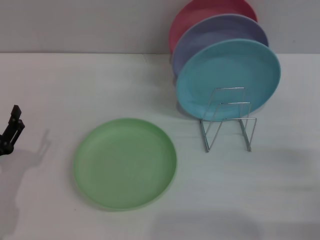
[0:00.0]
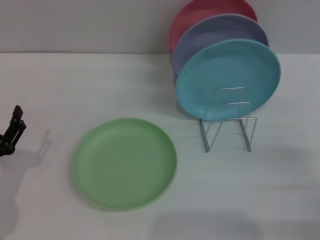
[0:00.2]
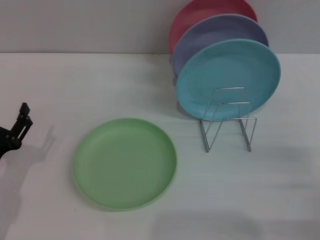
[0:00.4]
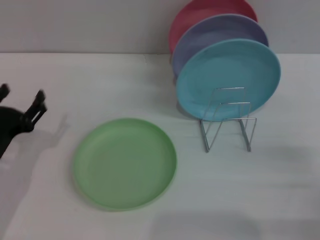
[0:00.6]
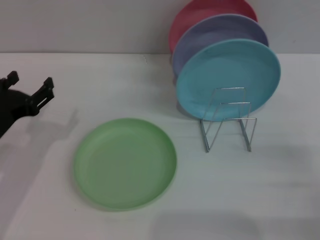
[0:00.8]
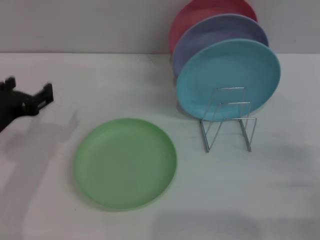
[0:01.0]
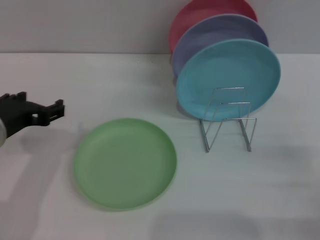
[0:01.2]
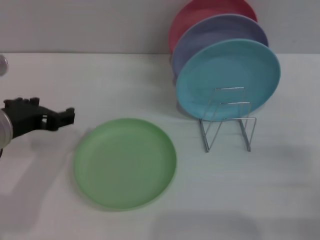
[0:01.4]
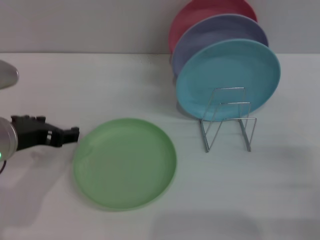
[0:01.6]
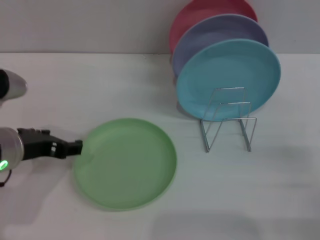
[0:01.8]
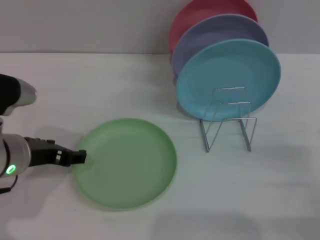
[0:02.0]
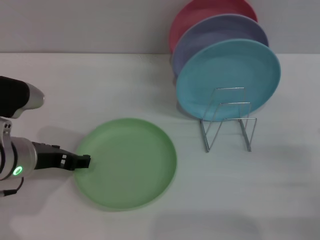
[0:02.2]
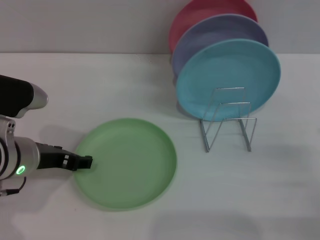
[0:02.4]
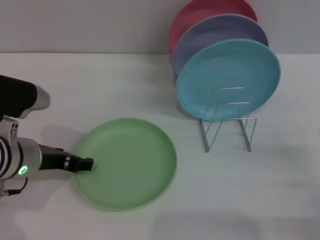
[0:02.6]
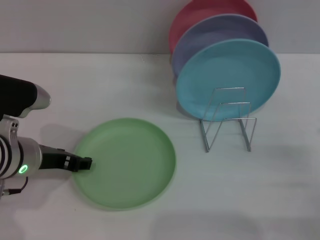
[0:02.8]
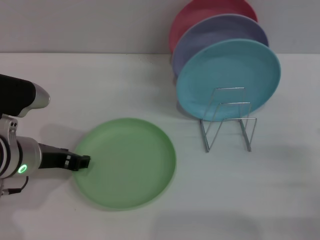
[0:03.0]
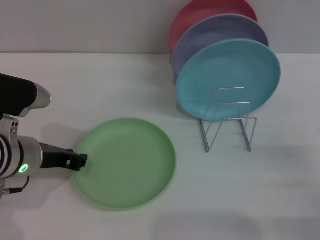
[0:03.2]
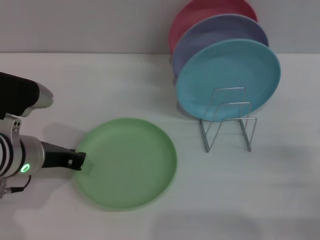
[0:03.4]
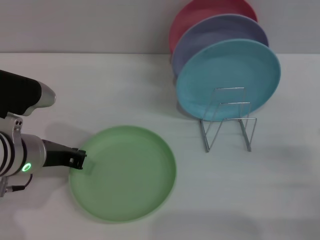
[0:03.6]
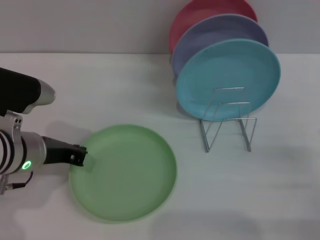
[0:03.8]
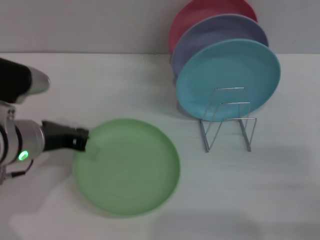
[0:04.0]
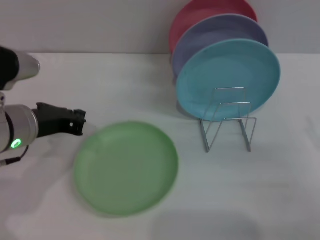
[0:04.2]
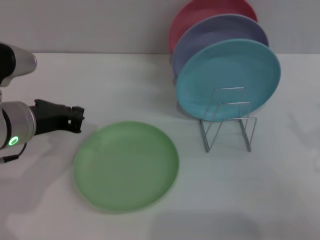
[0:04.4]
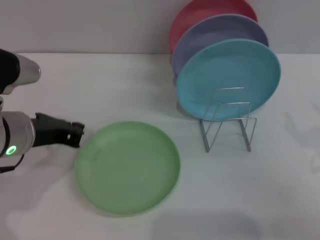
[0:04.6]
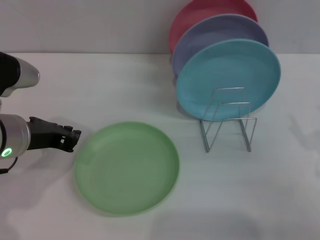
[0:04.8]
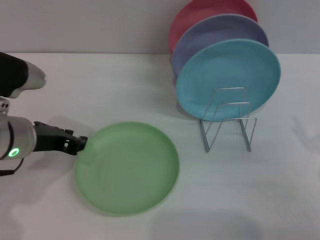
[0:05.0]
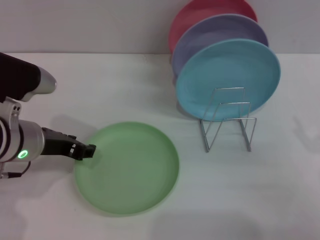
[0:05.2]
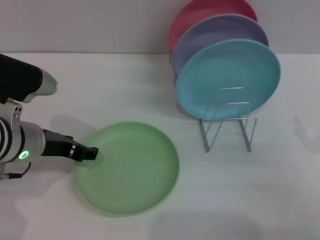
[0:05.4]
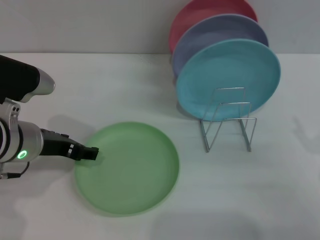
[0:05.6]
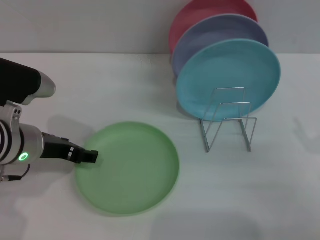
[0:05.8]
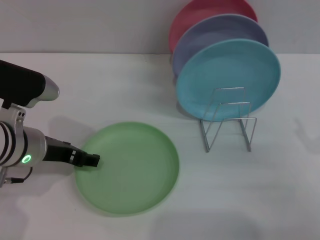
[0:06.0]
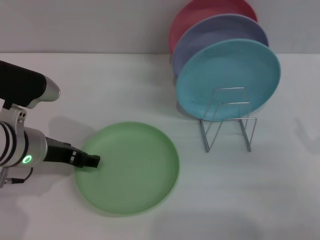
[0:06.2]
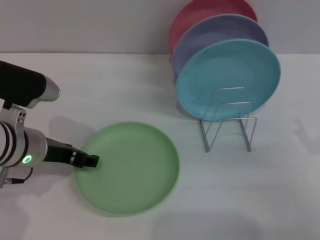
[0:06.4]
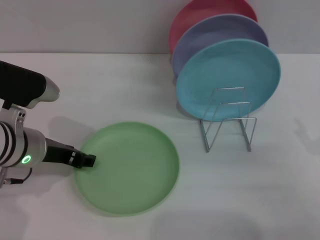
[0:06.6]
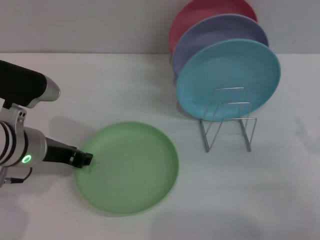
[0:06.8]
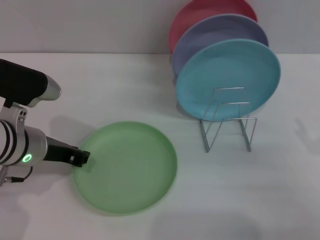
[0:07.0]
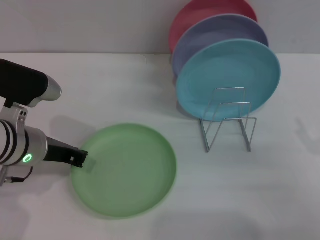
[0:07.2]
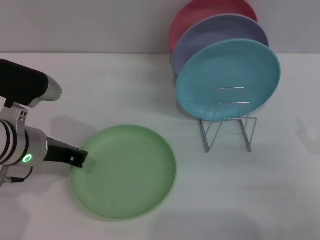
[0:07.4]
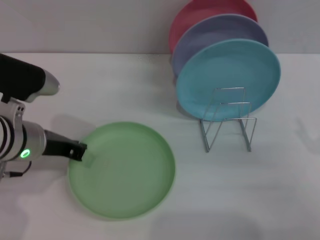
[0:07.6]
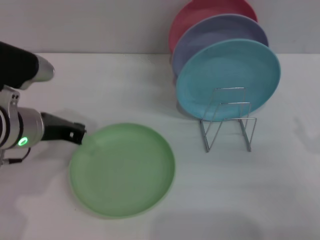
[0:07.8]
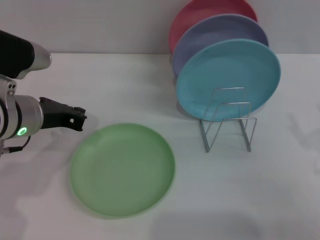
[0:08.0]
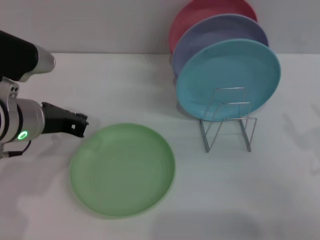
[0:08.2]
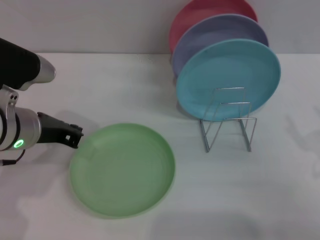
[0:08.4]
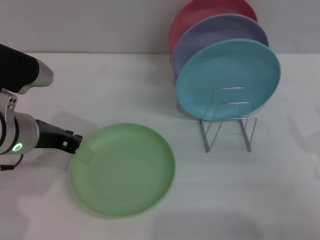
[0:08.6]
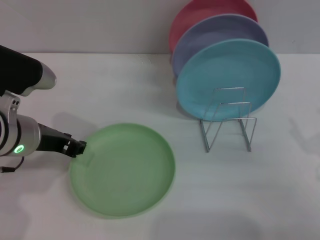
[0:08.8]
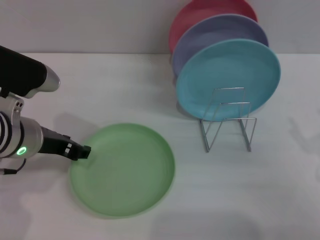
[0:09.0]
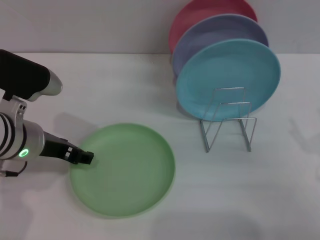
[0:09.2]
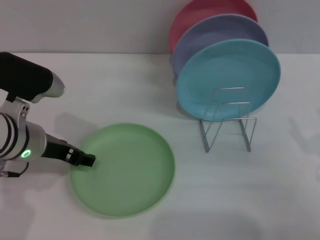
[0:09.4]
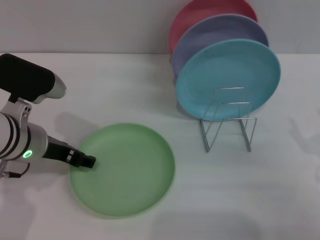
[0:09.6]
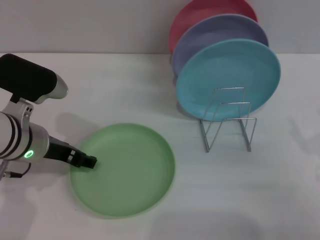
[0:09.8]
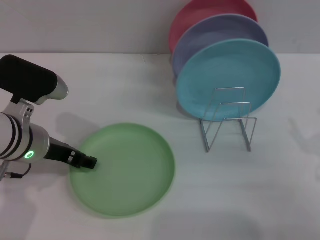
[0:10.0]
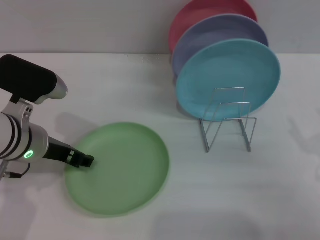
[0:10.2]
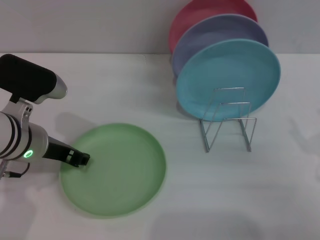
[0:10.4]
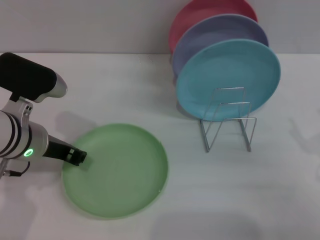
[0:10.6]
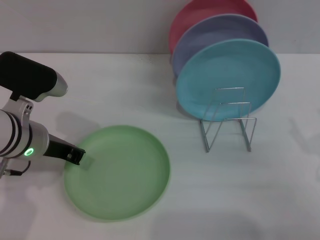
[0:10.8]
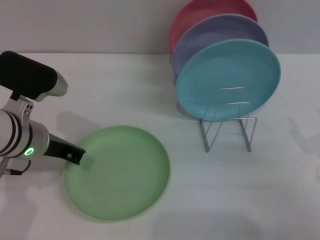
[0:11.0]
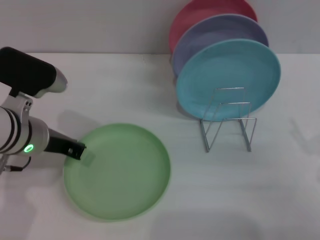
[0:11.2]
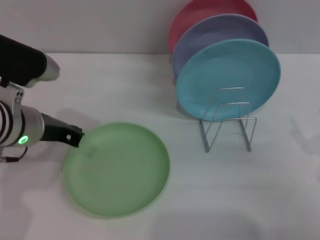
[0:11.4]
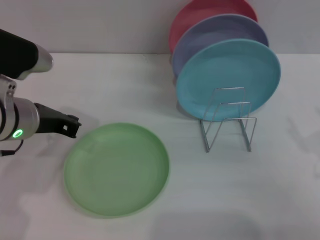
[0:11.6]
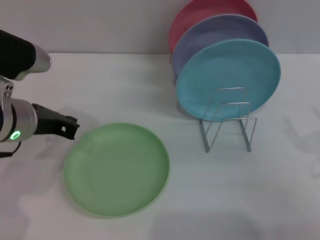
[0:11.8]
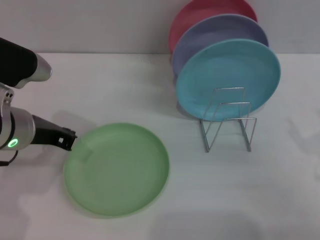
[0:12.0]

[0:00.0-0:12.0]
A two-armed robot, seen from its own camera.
Task of the whole recording: Grip the plate with one hand, pass it to the other, then set it on the shelf.
0:00.0 to 0:01.6: The left gripper travels upward, to the right and forward by approximately 15 cm.
0:01.6 to 0:03.0: The left gripper moves some 5 cm.
0:03.0 to 0:04.4: The left gripper closes. Meanwhile the right gripper travels upward by some 5 cm.
0:04.4 to 0:06.0: The left gripper opens its fingers.
0:06.0 to 0:07.6: The left gripper closes its fingers.
0:07.6 to 0:09.0: The left gripper opens its fingers.
0:09.0 to 0:10.4: There are only small adjustments of the grippers.
0:10.4 to 0:12.0: The left gripper closes its fingers.

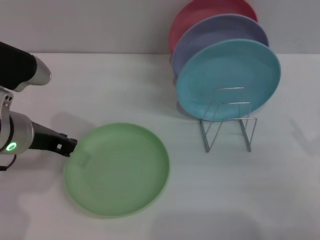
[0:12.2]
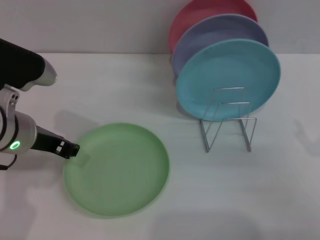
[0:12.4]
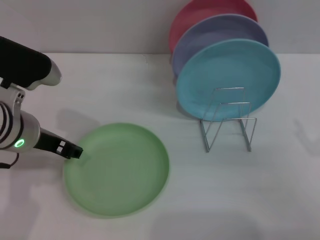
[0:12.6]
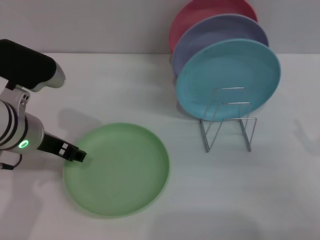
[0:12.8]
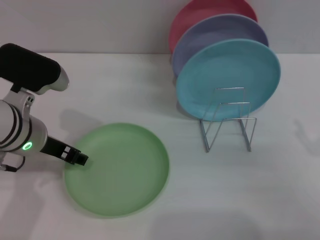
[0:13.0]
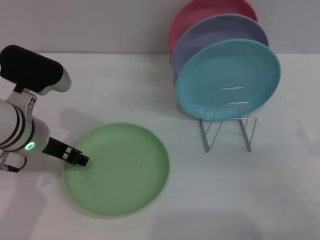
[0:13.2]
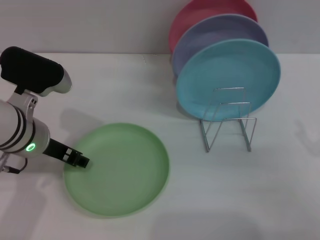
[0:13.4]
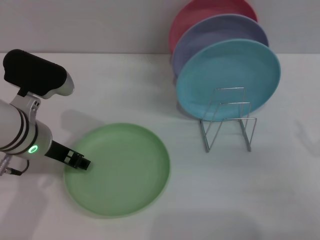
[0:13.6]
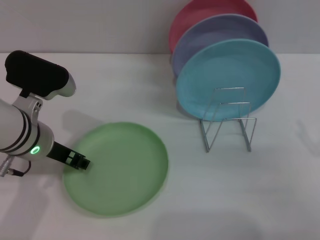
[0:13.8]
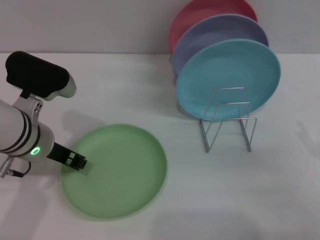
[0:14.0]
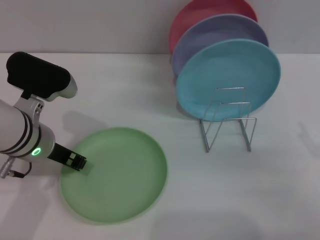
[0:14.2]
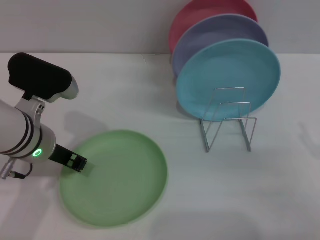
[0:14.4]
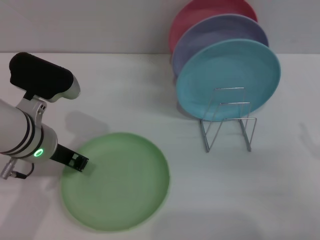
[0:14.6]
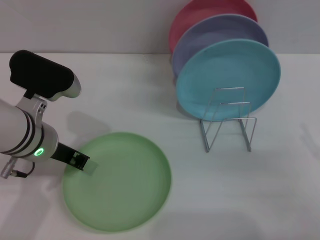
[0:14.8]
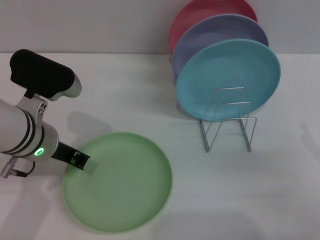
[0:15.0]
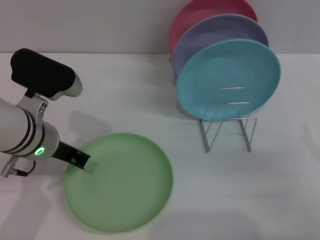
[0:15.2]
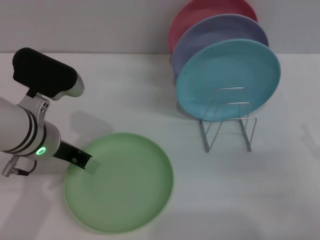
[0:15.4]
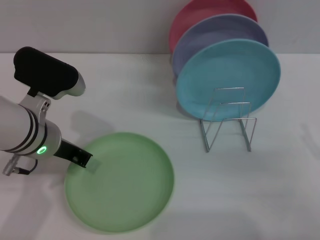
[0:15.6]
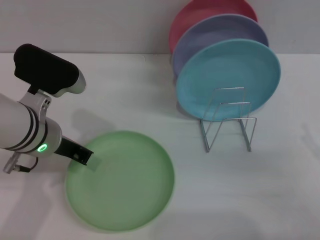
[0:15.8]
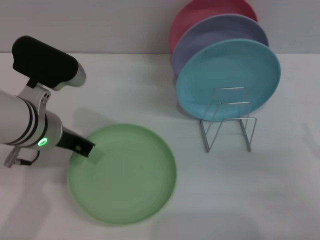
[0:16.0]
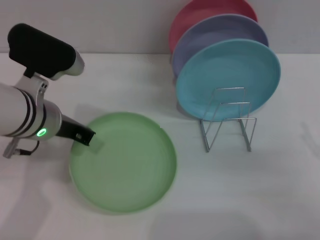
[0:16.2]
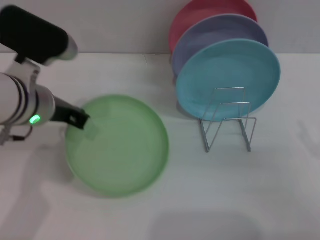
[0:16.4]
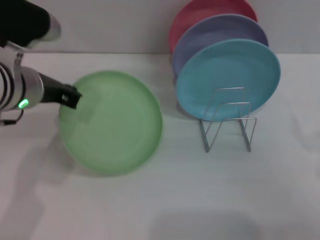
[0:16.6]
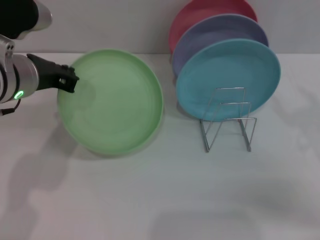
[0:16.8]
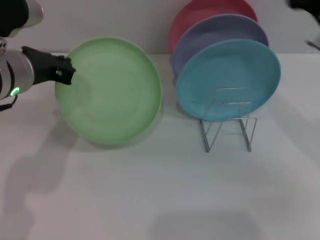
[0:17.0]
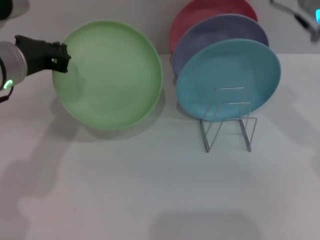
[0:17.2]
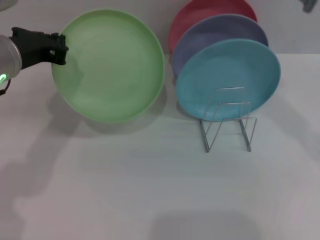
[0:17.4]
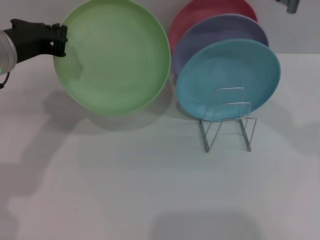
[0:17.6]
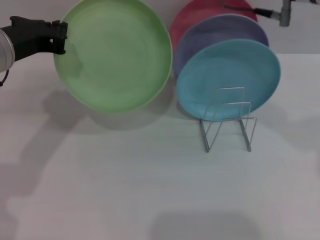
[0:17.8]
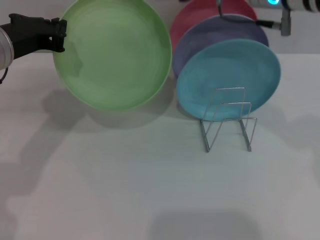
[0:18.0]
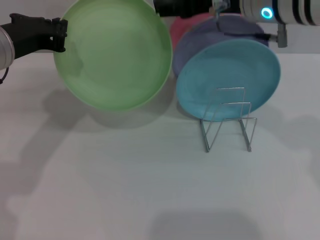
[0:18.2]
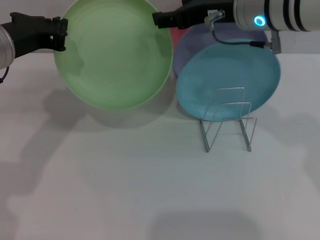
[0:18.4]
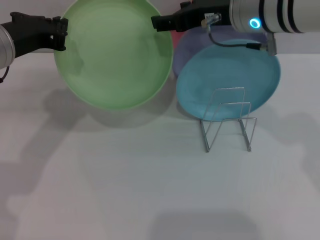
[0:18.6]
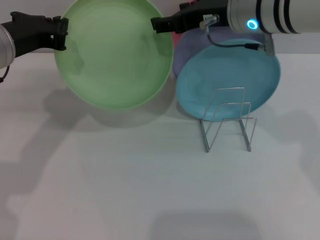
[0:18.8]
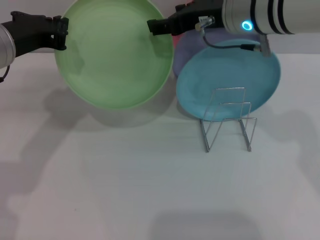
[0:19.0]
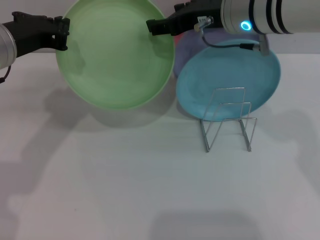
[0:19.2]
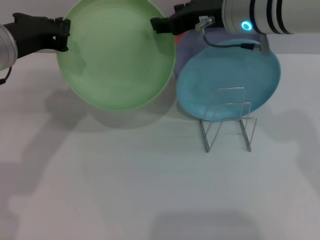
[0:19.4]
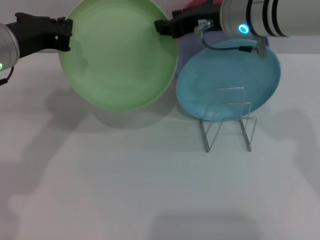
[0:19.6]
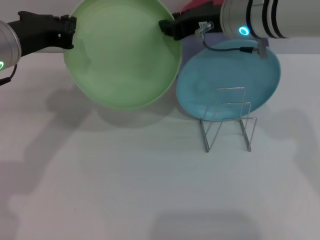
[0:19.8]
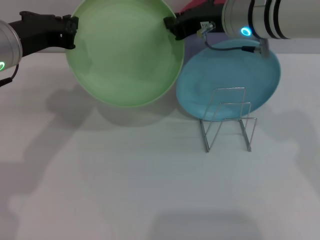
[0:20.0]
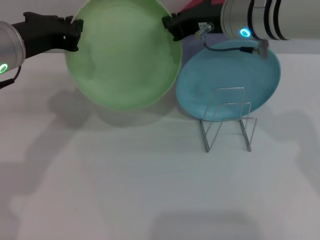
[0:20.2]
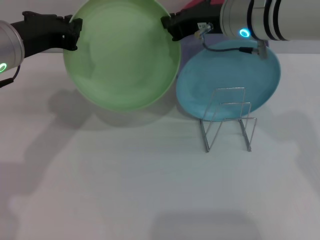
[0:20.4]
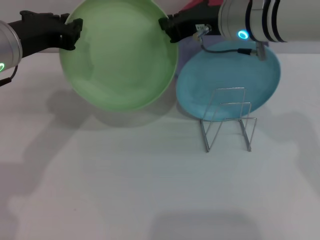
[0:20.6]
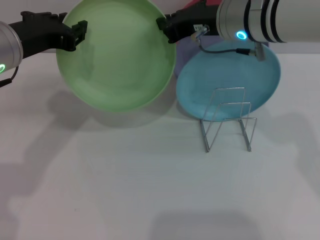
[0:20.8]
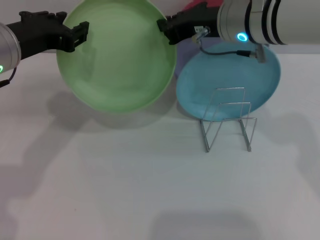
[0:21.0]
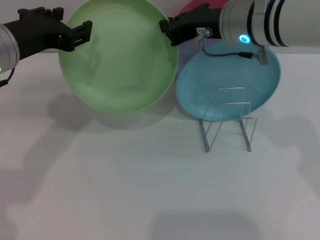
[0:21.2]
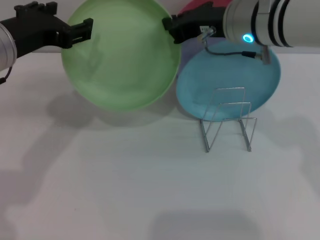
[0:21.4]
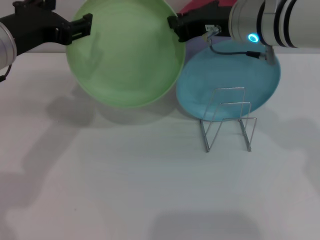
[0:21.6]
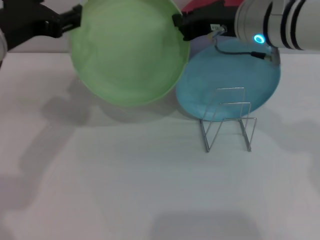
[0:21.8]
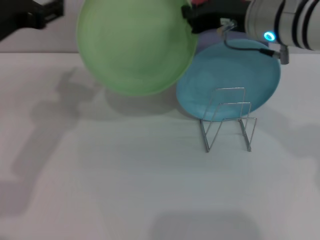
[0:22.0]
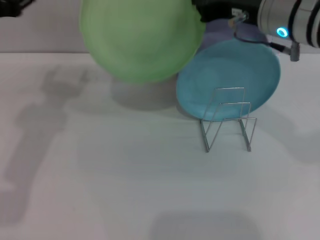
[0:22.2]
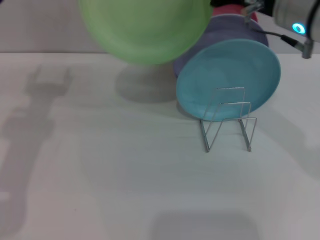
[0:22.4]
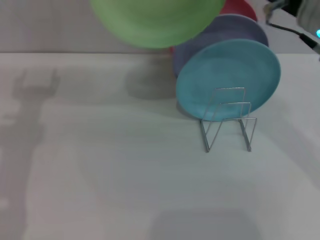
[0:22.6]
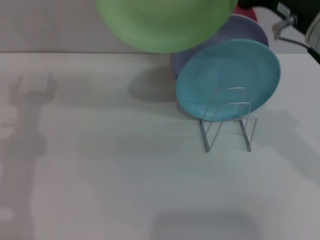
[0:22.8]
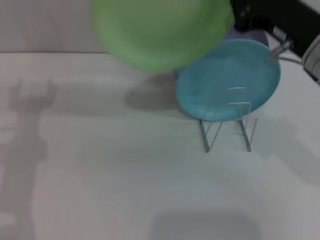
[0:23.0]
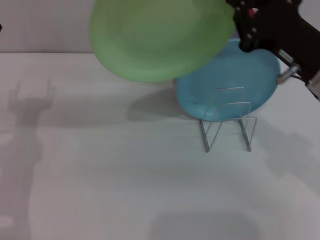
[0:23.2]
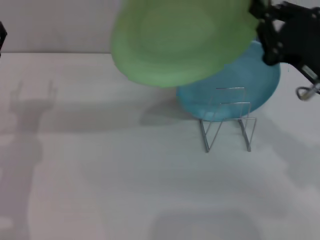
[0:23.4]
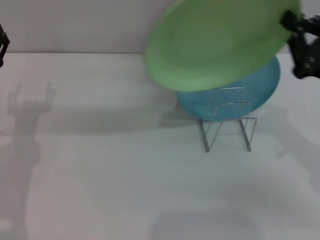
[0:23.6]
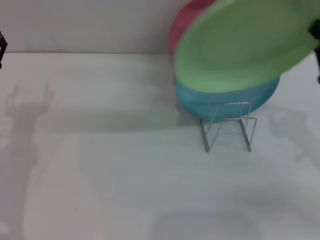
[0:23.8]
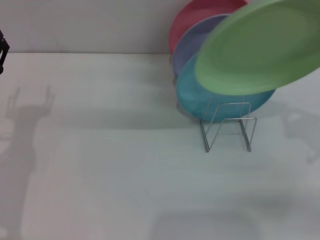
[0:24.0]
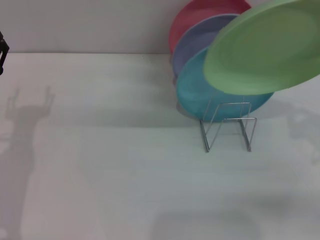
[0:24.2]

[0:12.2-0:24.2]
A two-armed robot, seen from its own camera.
Task of the whole recording: Grip the plate with one hand, pass it to the other, then set it on the shelf.
Step, 0:12.2 to 0:17.0: Pick up the plate with the left gripper.
Step, 0:17.4 to 0:21.6: Pass the plate from the left gripper to the right gripper.
0:12.2 to 0:13.8: The left gripper opens its fingers.
0:13.8 to 0:15.2: The left gripper closes.
0:15.2 to 0:16.6: The left gripper moves upward, roughly 5 cm.
0:16.6 to 0:18.2: The right gripper moves to the left, forward and upward, roughly 30 cm.
0:18.2 to 0:19.8: The grippers stay close to where they were, moving slightly.
0:19.8 to 0:21.2: The right gripper closes up; the left gripper opens its fingers.
0:21.2 to 0:22.6: The right gripper heads backward and to the right, covering roughly 10 cm. The left gripper is displaced to the left by approximately 5 cm, and opens its fingers.
0:22.6 to 0:24.2: The left gripper goes roughly 10 cm downward. The right gripper goes about 20 cm to the right, downward and backward.
